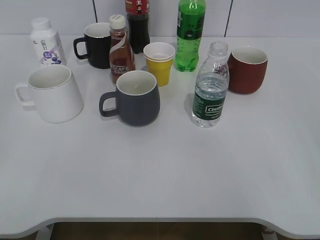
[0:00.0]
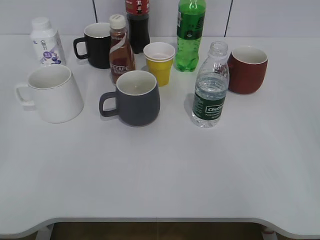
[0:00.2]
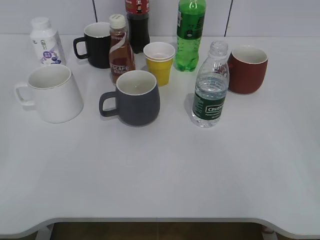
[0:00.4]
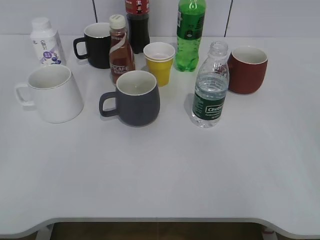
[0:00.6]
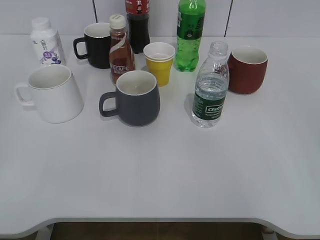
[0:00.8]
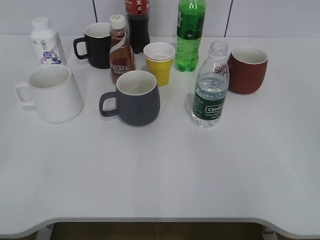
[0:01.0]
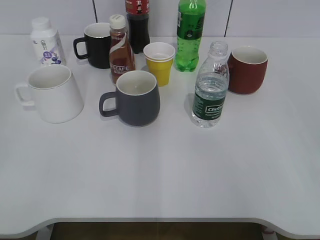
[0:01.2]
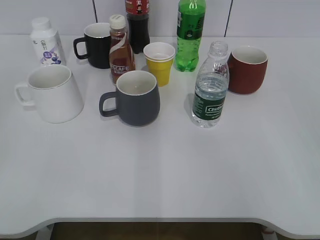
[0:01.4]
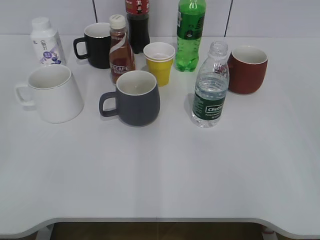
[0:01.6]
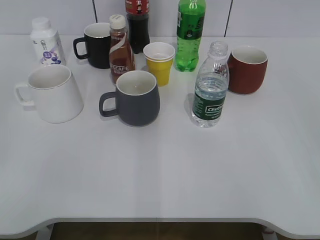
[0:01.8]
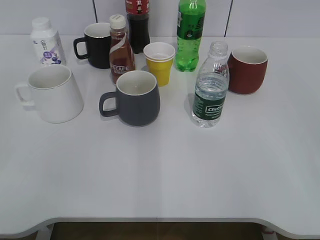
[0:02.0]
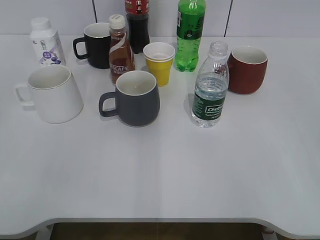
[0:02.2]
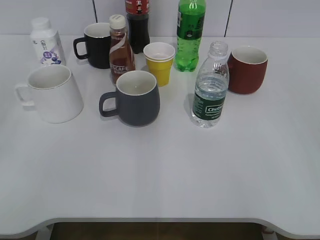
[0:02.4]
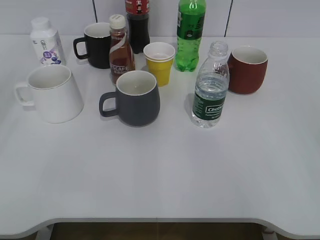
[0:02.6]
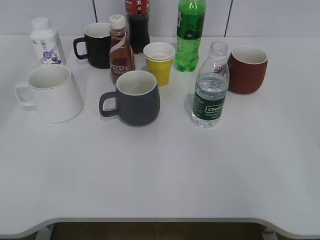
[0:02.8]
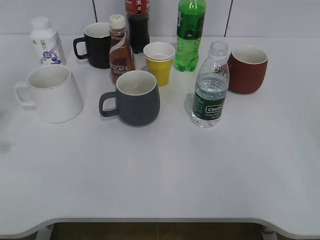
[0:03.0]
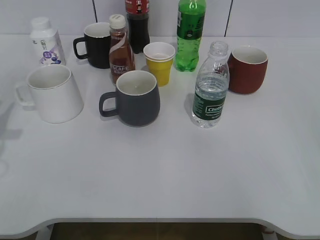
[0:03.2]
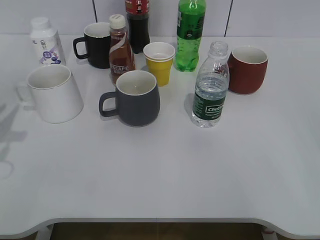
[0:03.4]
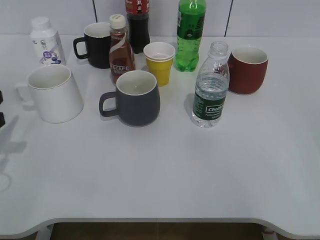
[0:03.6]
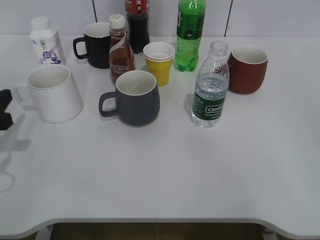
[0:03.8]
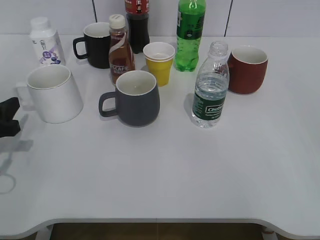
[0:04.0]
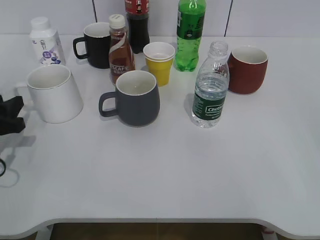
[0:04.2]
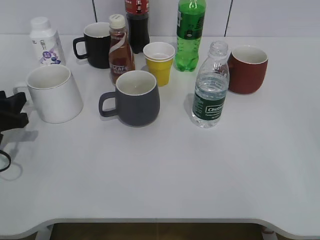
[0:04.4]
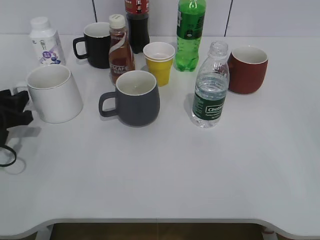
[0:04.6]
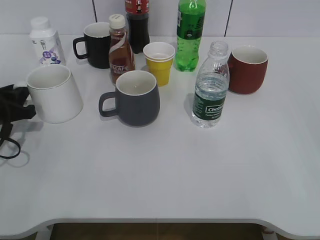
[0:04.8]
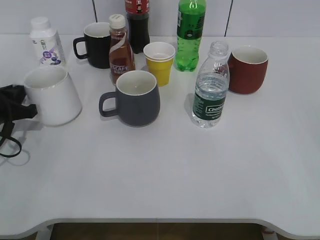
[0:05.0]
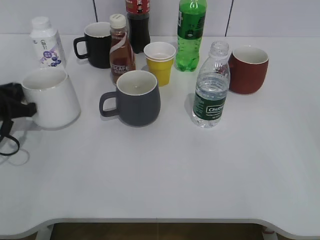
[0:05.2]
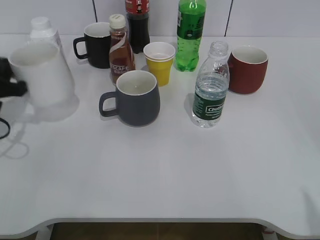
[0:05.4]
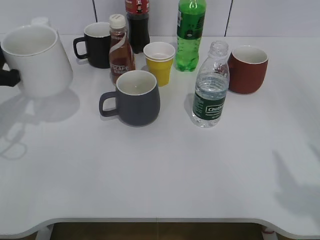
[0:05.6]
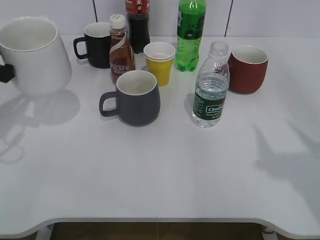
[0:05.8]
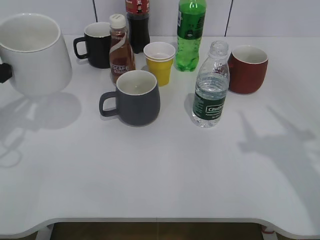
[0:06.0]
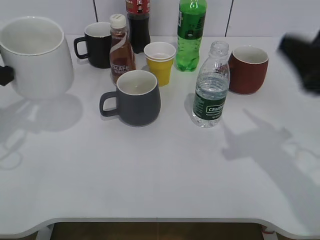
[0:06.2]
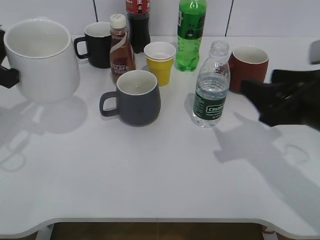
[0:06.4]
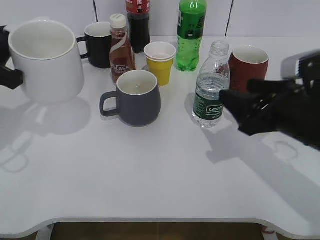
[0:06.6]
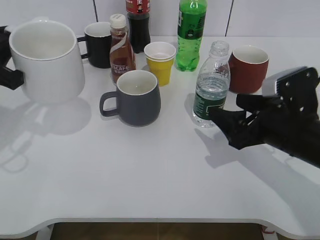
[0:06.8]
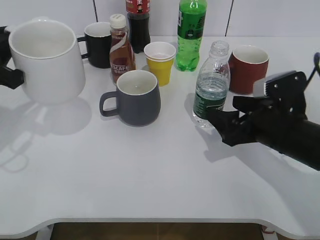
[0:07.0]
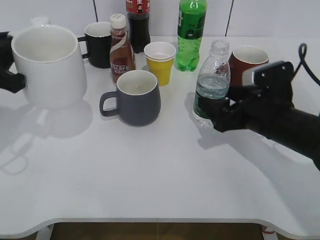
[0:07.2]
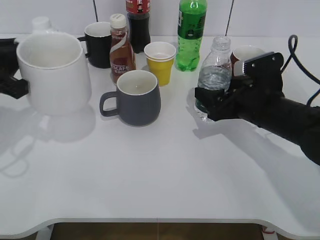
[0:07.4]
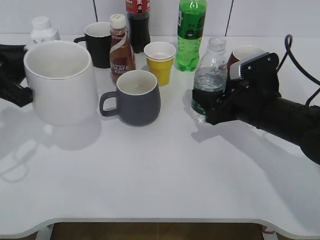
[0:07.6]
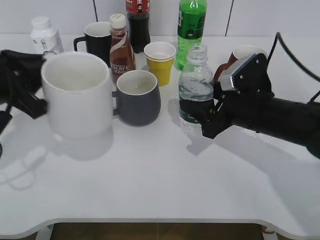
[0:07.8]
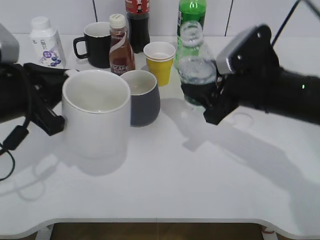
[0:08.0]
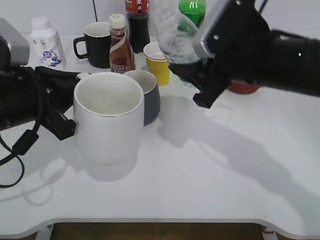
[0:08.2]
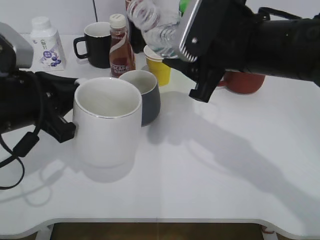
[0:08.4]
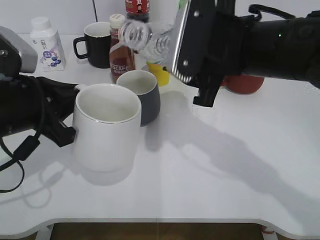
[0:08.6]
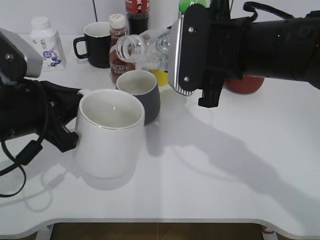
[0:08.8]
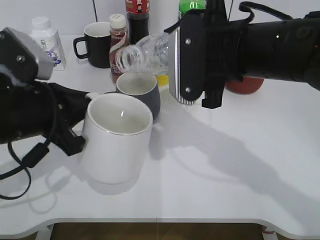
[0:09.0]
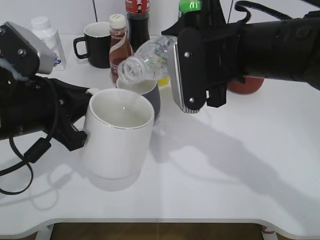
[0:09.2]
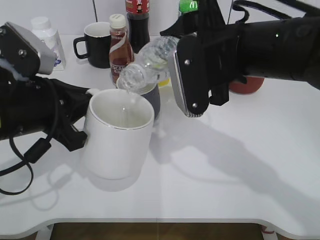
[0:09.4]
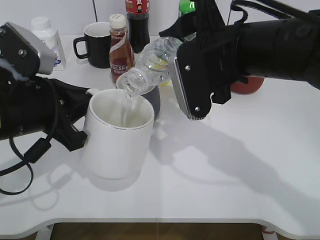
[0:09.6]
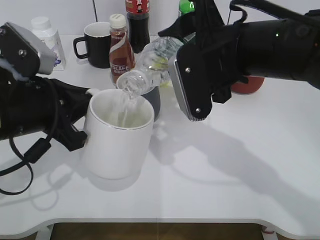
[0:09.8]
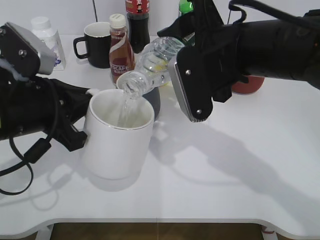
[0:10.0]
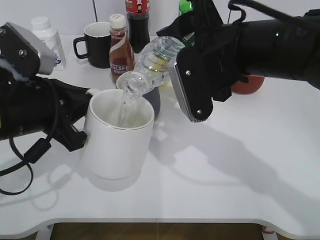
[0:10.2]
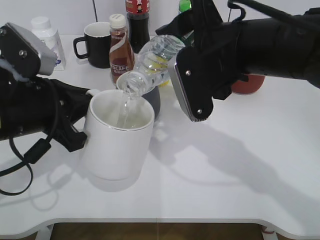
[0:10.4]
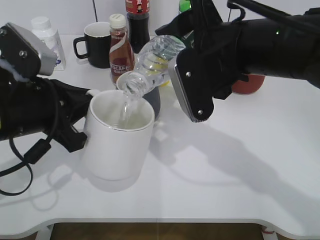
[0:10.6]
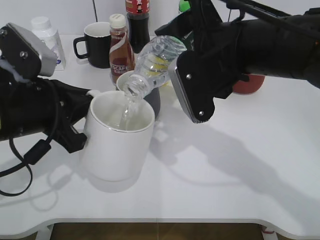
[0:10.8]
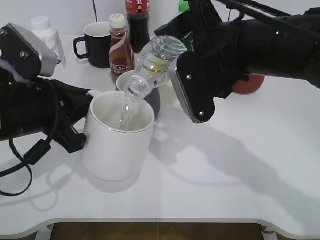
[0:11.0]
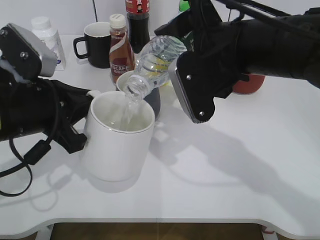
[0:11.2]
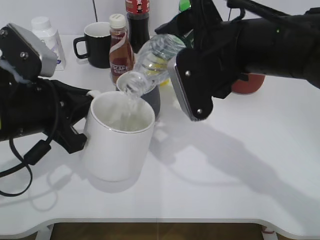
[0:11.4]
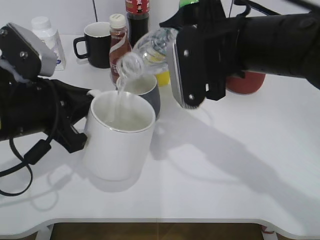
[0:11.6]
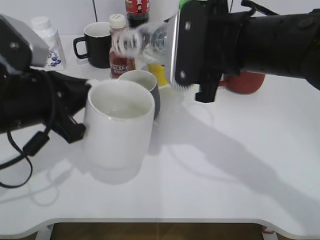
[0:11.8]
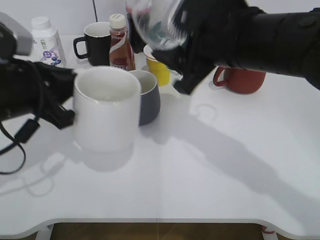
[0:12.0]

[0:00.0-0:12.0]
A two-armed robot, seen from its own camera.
Step, 0:02.2 to 0:05.0: Grasp the white cup with left gripper.
Step, 0:05.2 to 0:05.8: Lift the white cup with left gripper.
Step, 0:06.0 to 0:07.4: Grasp the bottle with water with right gripper.
Step, 0:07.8 to 0:11.6: Pour the water from bottle to cup with right gripper.
0:03.0 to 0:04.4: The left gripper shifts approximately 20 cm downward and forward.
0:04.4 to 0:06.0: The left gripper moves upward, roughly 10 cm, and closes up. Meanwhile the right gripper travels forward by approximately 15 cm, and closes up.
0:06.0 to 0:07.6: The right gripper goes roughly 25 cm downward, forward and to the left, and closes up.
0:07.6 to 0:09.0: The left gripper travels to the right by some 5 cm; the right gripper travels upward and to the left by about 15 cm.

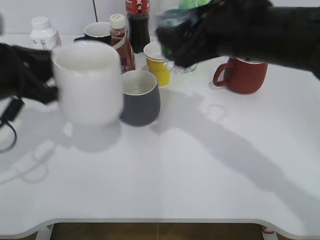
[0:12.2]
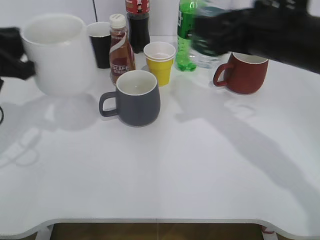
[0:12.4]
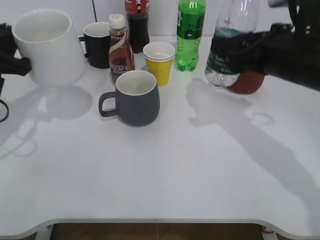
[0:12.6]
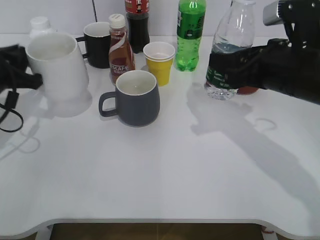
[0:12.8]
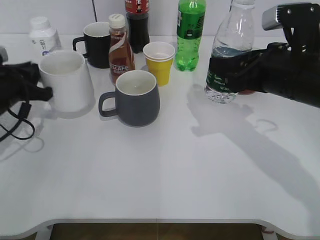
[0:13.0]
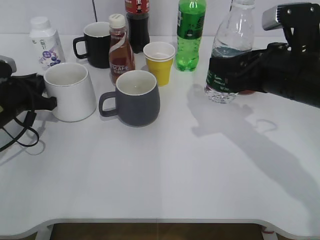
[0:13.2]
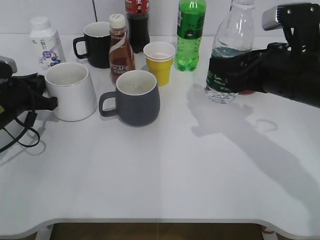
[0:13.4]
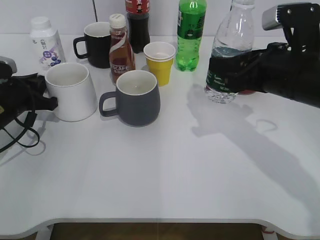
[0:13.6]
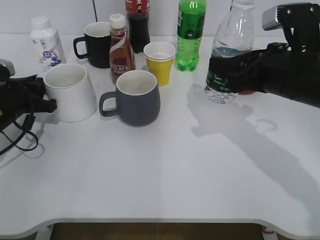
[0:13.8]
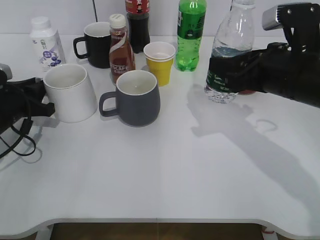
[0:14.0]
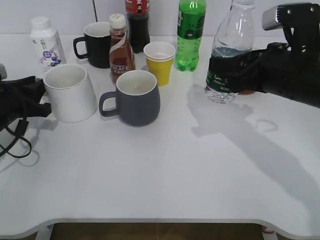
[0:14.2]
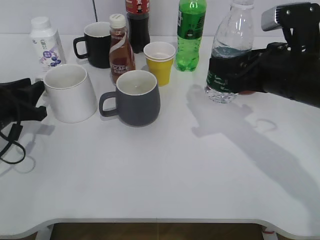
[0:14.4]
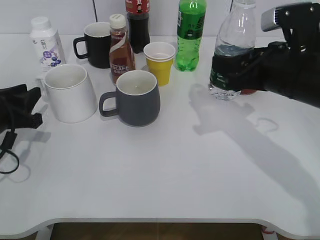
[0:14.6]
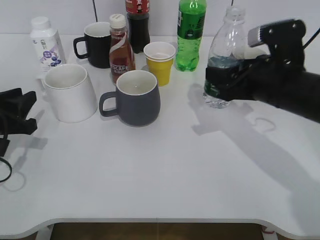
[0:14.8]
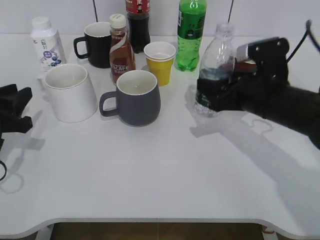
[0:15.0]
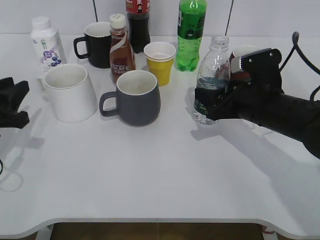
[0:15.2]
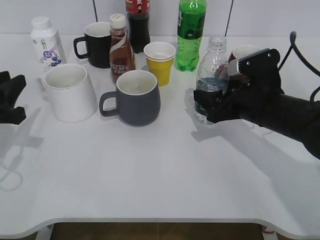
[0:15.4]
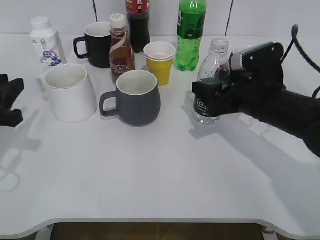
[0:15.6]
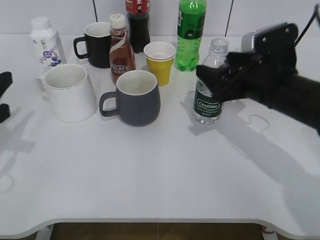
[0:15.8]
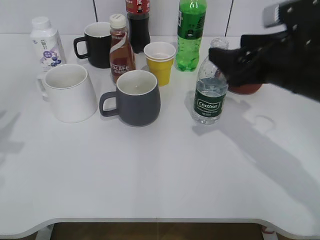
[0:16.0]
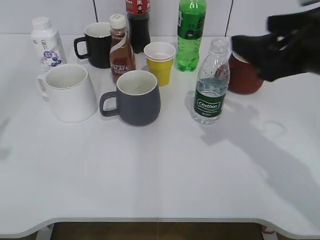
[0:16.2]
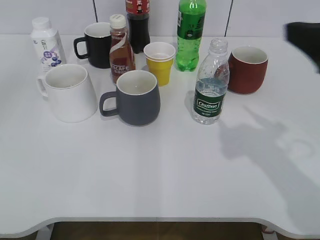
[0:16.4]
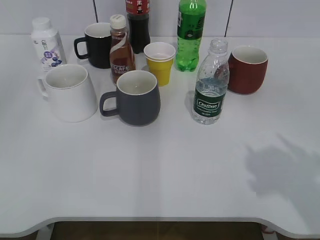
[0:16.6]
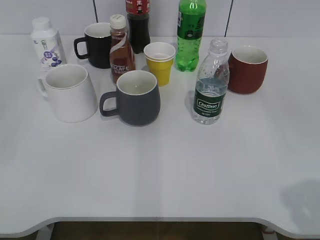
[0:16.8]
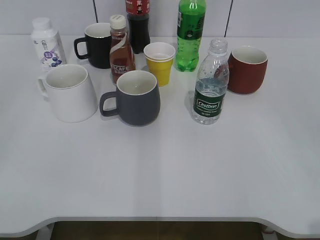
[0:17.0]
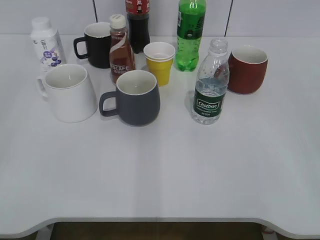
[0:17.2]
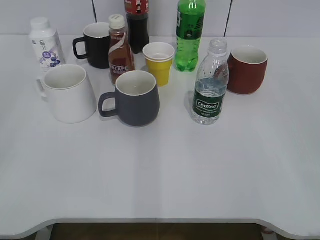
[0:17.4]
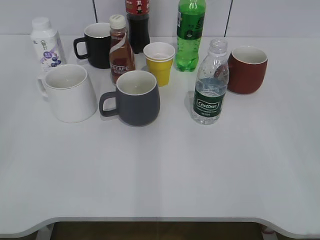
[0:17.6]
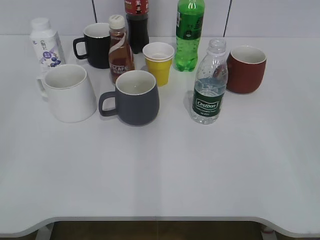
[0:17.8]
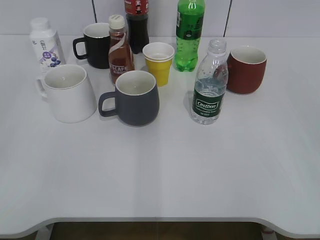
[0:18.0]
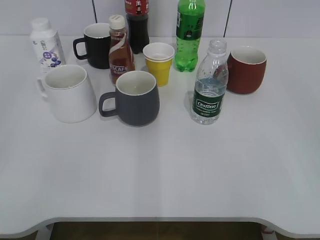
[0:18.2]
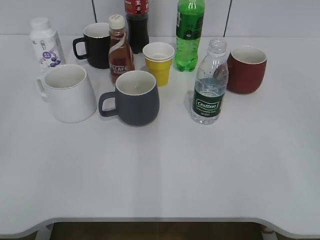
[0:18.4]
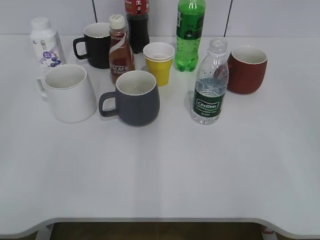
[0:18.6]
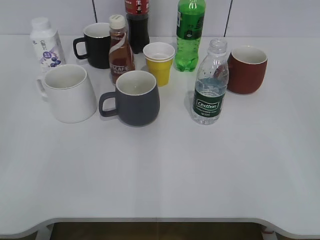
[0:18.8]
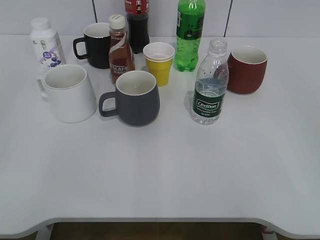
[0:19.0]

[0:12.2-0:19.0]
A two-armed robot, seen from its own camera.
Step, 0:12.2 to 0:13.4: Place the white cup on the table with left gripper.
Step, 0:13.8 to 0:15.4: Place the water bottle on the table with right gripper.
0:12.2 to 0:13.6: The left gripper shifts roughly 15 cm downward, forward and to the left. Meanwhile the right gripper goes some 10 cm to the right and downward.
0:13.6 to 0:15.0: The left gripper is displaced backward by some 10 cm, and opens. Meanwhile the right gripper travels downward by roughly 5 cm.
0:15.0 to 0:16.2: The right gripper goes some 10 cm upward and backward, and opens its fingers; the left gripper moves upward and backward, some 20 cm.
0:16.2 to 0:17.6: The right gripper is displaced backward and to the right by about 25 cm. Meanwhile the left gripper moves backward, some 15 cm, and opens up.
